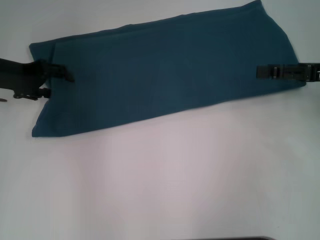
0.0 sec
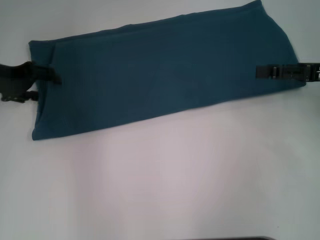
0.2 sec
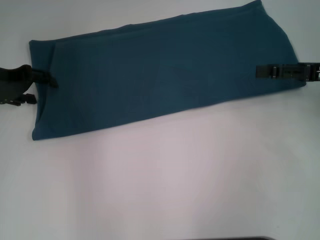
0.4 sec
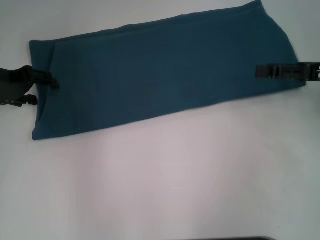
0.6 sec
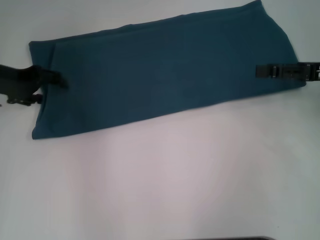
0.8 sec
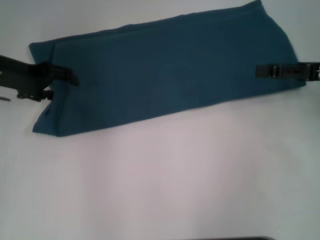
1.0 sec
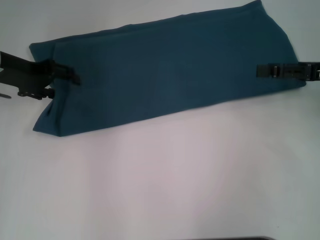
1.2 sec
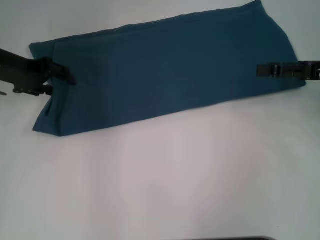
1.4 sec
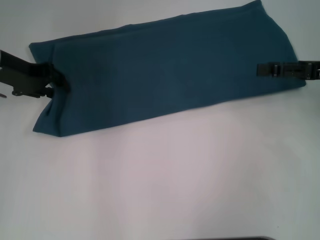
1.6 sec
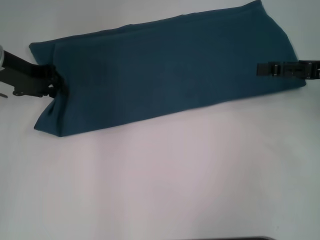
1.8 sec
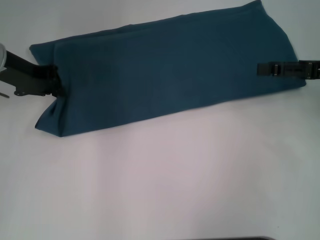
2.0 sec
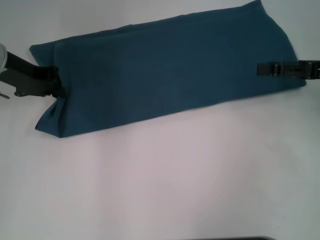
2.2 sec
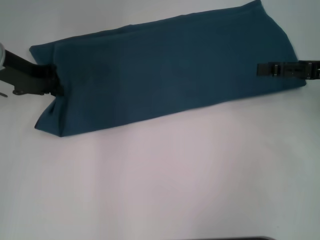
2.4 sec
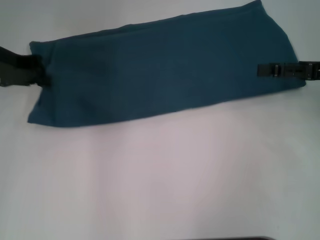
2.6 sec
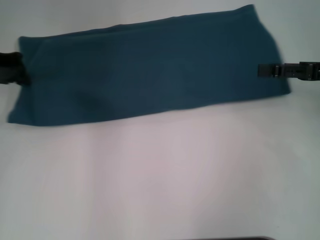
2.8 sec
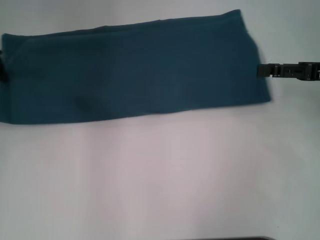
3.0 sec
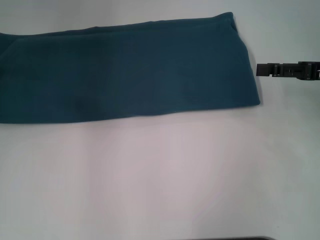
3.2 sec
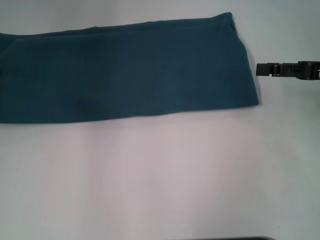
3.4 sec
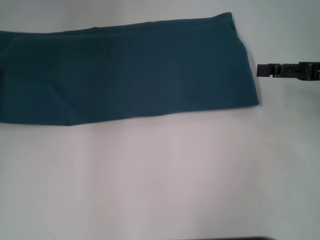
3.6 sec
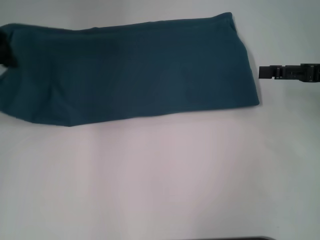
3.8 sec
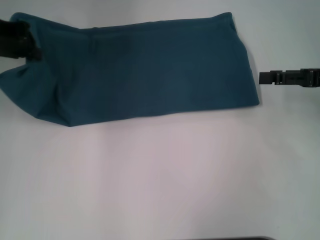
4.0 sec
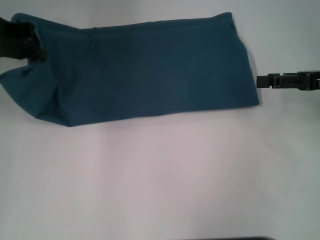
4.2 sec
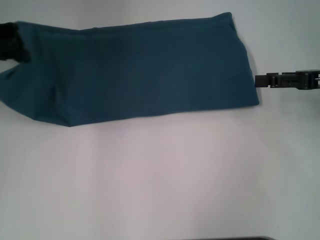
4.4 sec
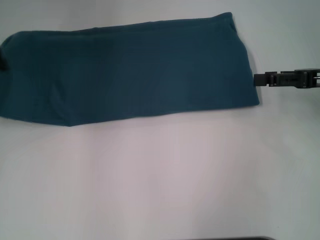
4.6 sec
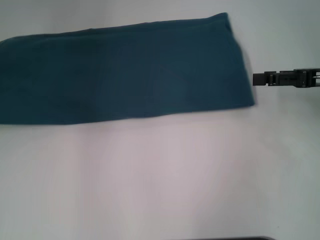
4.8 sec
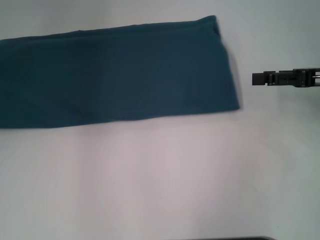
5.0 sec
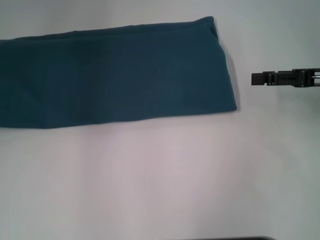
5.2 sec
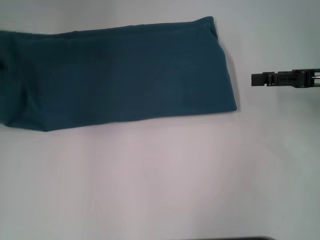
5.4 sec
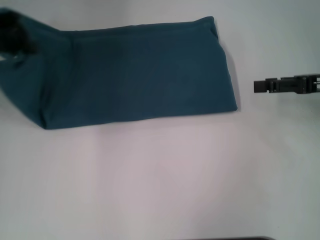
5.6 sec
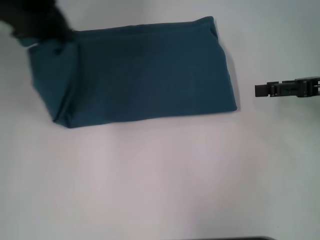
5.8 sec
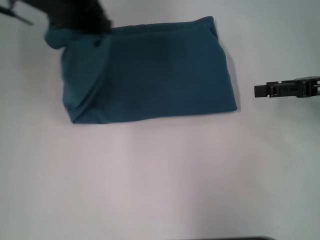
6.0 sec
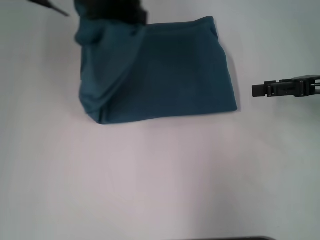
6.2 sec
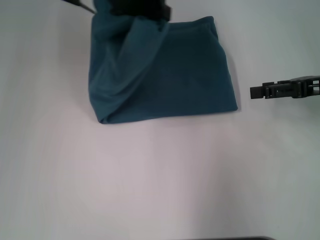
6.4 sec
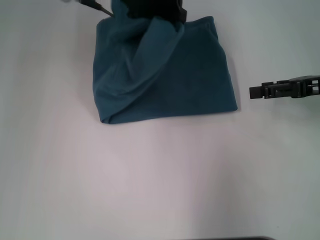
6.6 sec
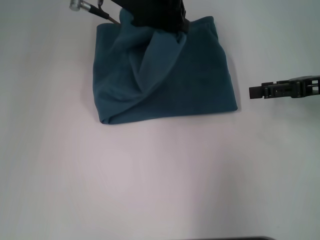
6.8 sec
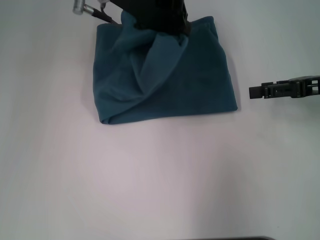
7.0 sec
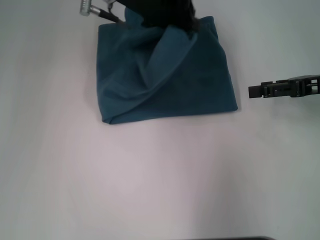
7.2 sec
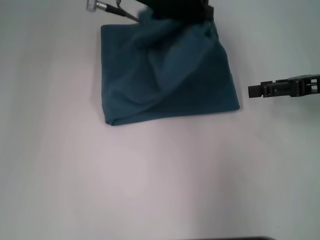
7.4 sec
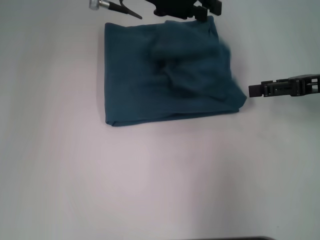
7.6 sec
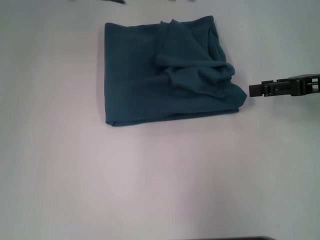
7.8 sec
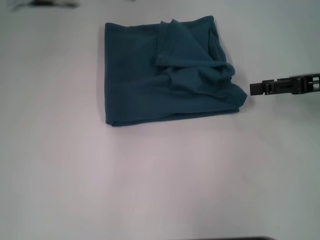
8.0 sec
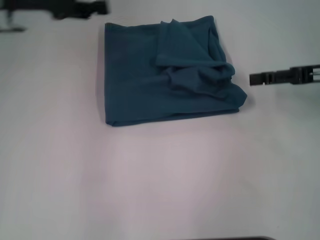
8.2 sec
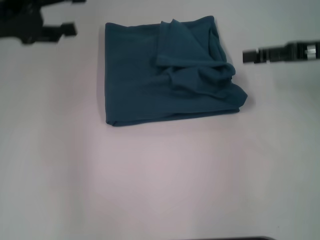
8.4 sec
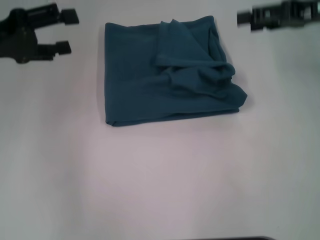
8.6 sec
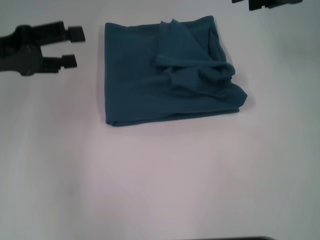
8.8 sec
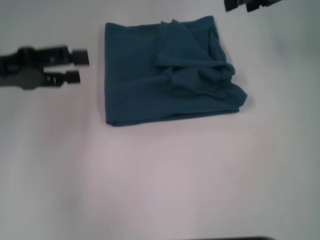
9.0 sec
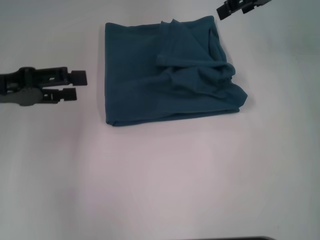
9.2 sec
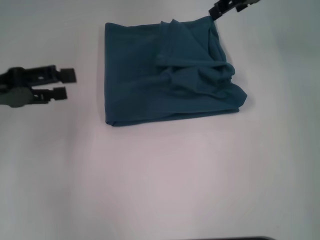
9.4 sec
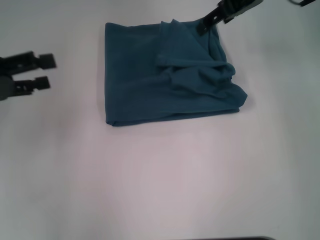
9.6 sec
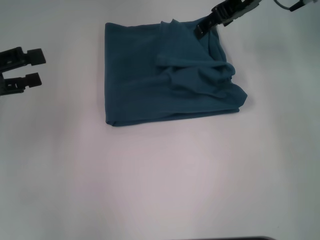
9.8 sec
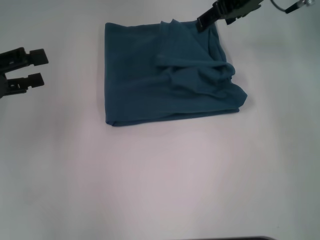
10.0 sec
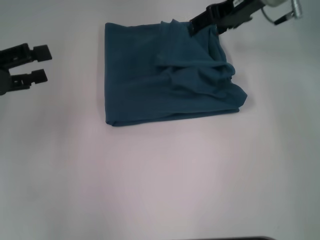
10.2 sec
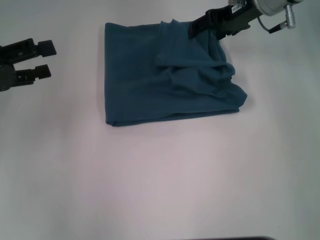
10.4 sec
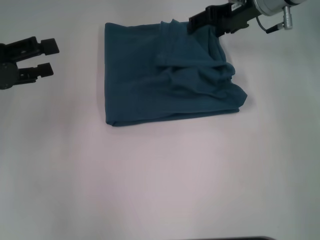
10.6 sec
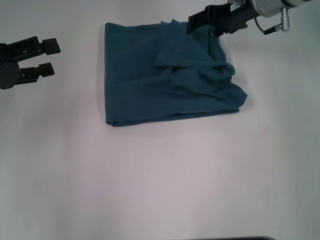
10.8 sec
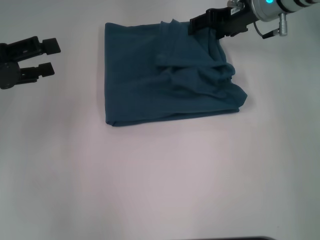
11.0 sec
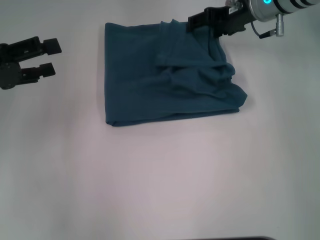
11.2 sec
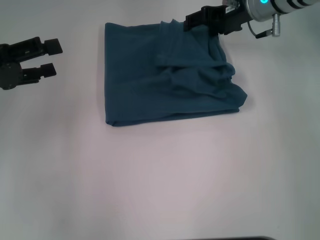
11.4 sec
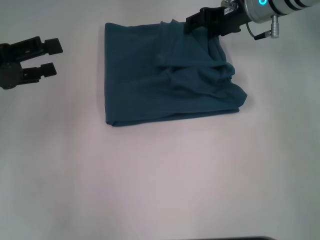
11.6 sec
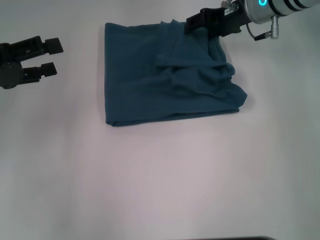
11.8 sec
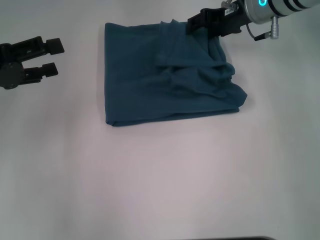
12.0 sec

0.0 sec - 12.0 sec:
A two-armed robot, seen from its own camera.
Step, 0.0 sec - 7.6 sec: Fold the clothes to the left.
0.0 sec - 1.6 sec: There are only small adjustments of the grippers.
1.6 sec - 3.0 sec: The left gripper shifts approximately 5 cm to the left, and closes up.
4.4 sec - 6.0 sec: The left gripper goes some 10 cm to the right.
6.0 sec - 7.6 sec: The left gripper moves to the right, roughly 10 cm.
7.6 sec - 9.0 sec: The left gripper is displaced to the left and backward by some 25 cm, and opens its fingers. Meanwhile the right gripper shifts approximately 15 cm upward, forward and to the left.
9.0 sec - 10.4 sec: The right gripper heads to the left and downward, covering about 10 cm.
10.4 sec - 12.0 sec: The grippers move only a little.

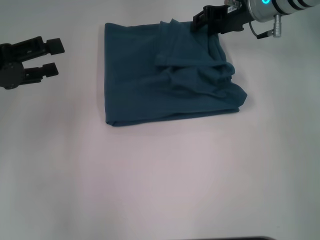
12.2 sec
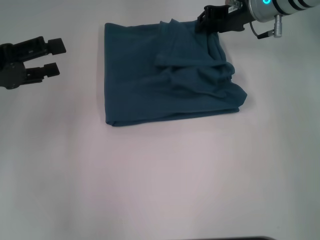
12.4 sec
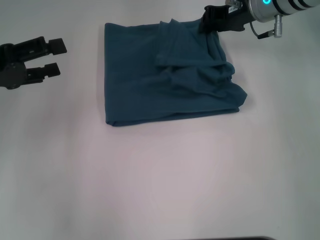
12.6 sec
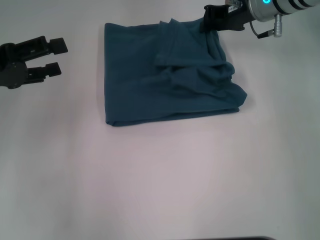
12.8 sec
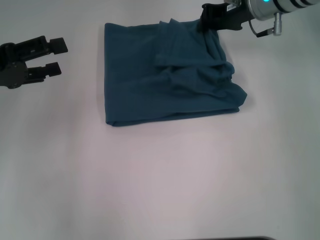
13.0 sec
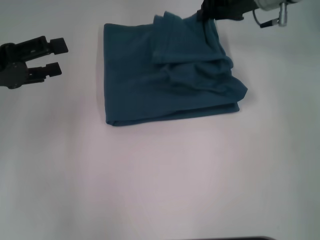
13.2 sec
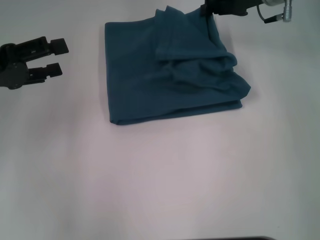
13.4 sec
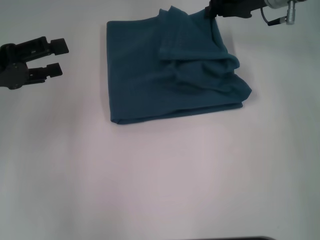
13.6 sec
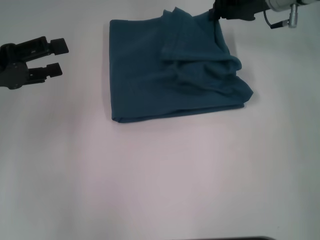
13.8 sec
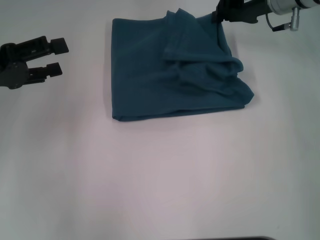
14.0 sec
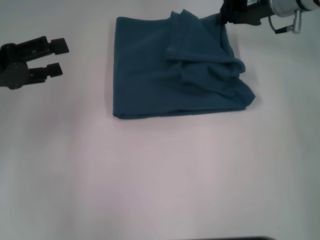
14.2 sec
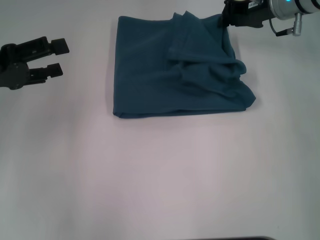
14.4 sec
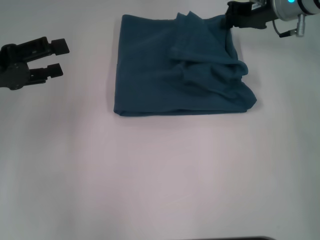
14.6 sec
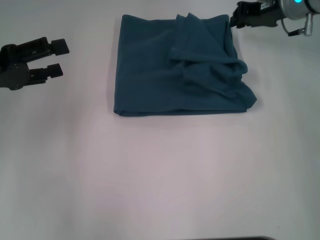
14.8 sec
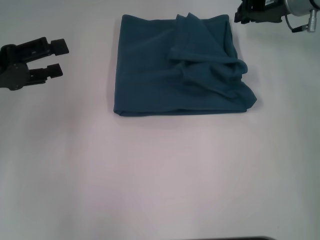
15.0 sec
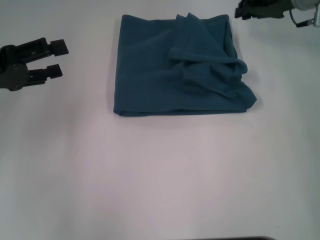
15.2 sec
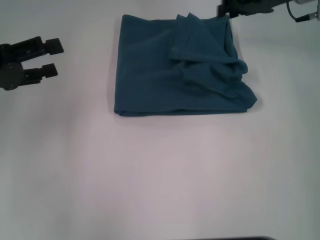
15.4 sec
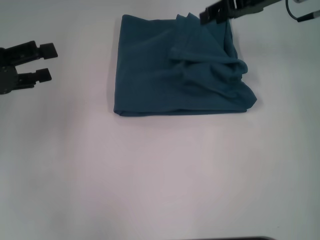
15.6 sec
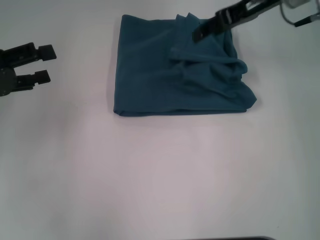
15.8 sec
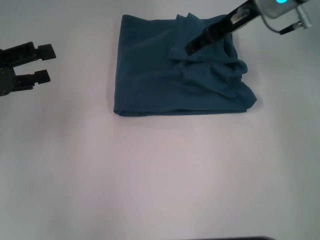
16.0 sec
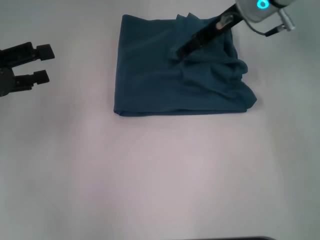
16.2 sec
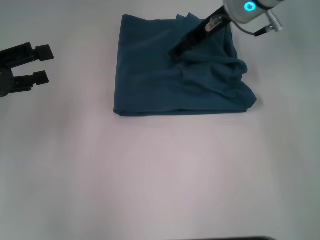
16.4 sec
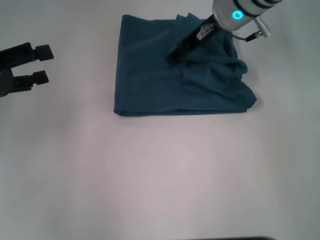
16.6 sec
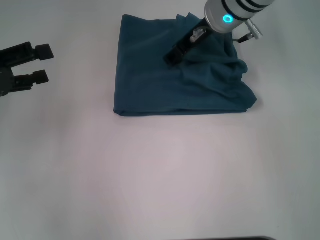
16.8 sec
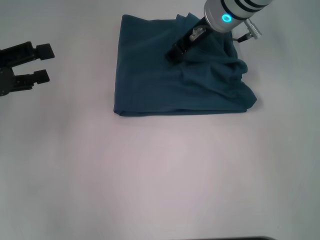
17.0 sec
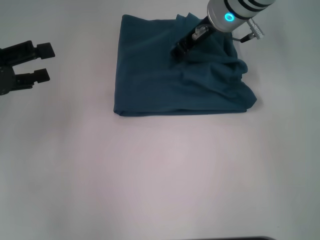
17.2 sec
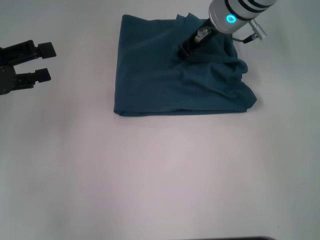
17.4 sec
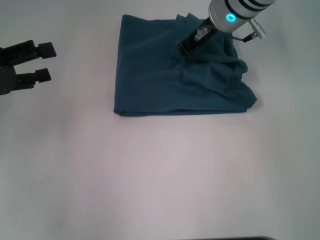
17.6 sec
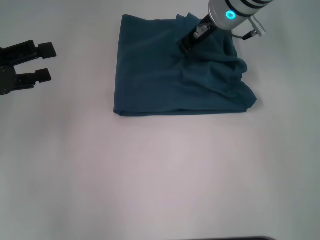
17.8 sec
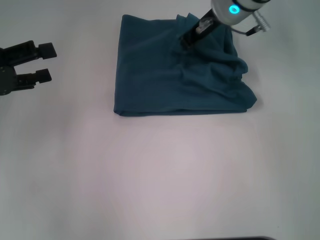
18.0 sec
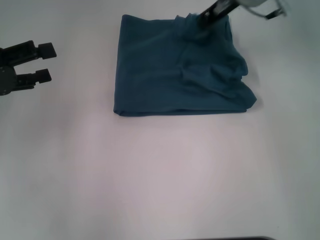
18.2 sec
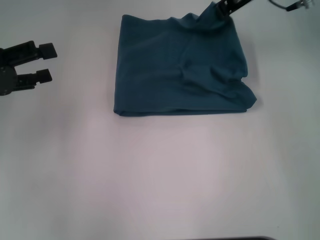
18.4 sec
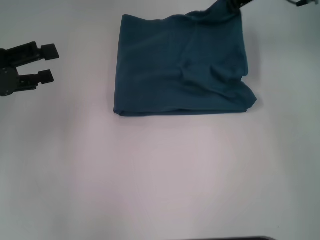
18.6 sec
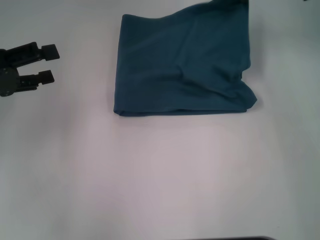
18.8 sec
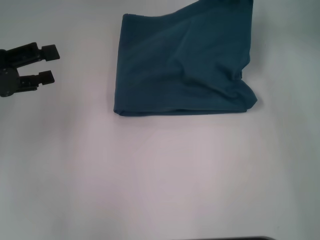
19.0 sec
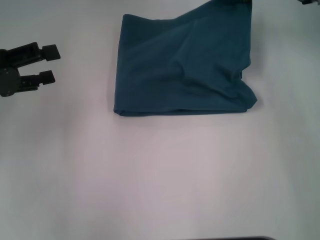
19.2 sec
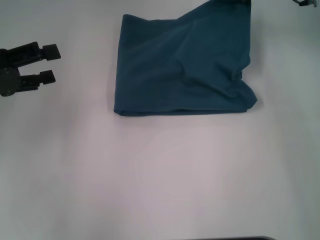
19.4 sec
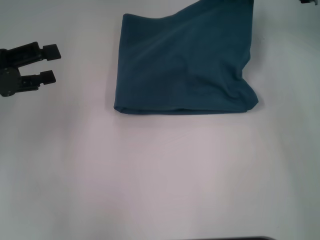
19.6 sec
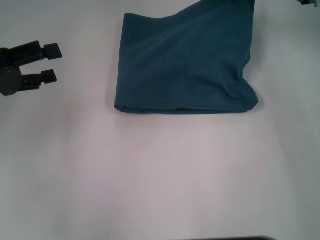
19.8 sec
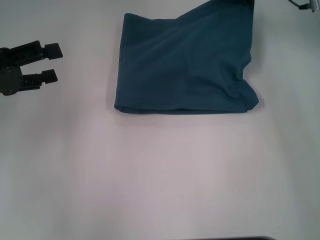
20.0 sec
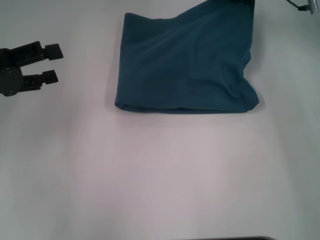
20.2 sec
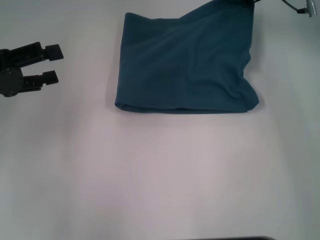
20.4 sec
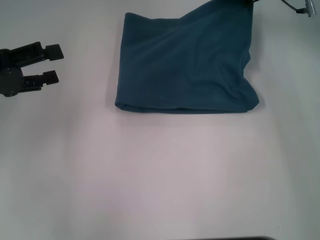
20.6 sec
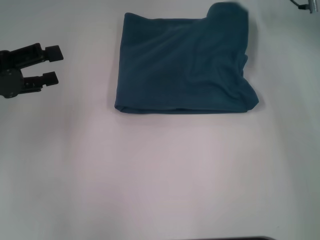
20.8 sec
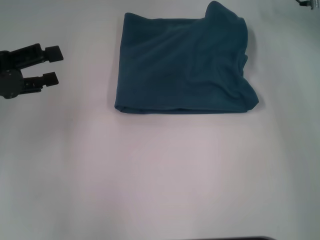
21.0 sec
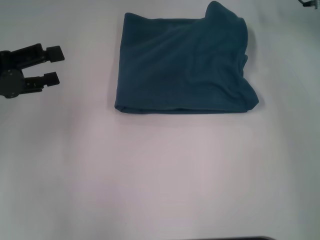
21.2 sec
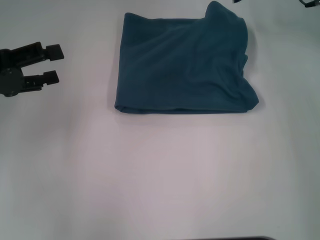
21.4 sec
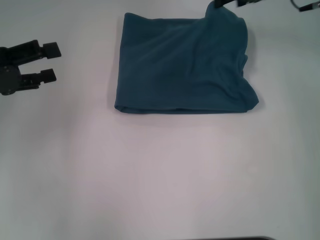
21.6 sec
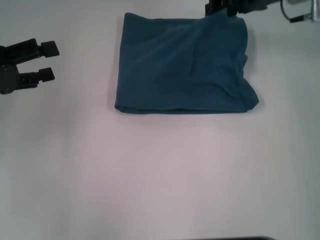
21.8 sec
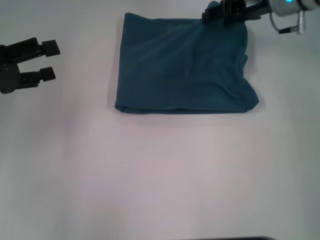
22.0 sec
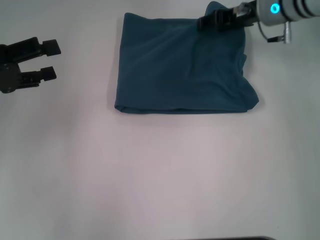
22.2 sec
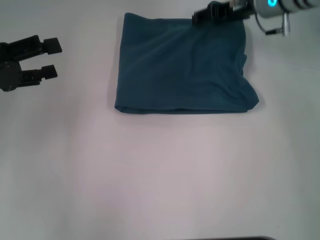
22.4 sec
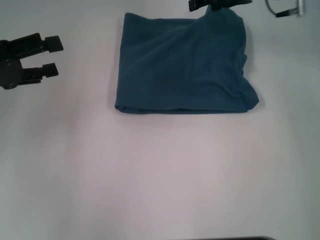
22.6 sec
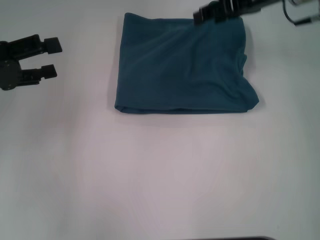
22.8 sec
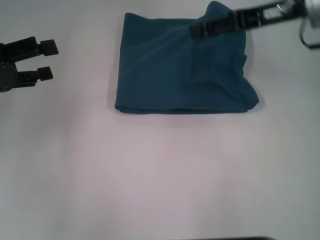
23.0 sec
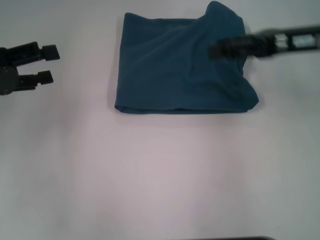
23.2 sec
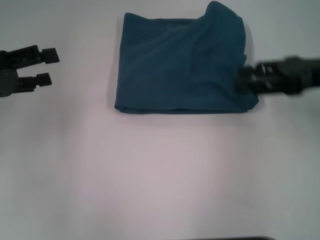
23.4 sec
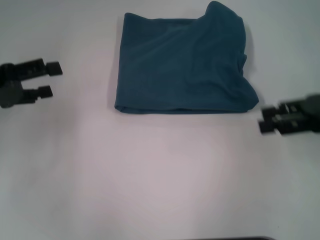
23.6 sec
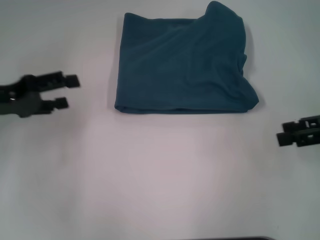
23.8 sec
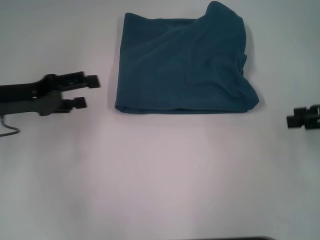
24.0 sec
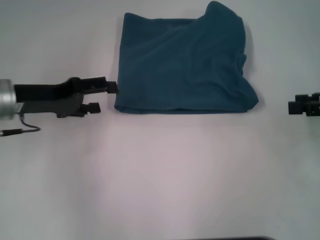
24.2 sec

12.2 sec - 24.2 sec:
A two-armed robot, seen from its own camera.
12.2 sec - 13.8 sec: The right gripper closes up.
13.8 sec - 15.2 sec: The grippers move only a little.
15.2 sec - 16.6 sec: The right gripper goes approximately 10 cm to the left, and opens up.
16.6 sec - 18.2 sec: The right gripper closes up.
18.2 sec - 19.8 sec: The right gripper shifts roughly 5 cm to the right.
19.8 sec - 21.2 sec: The right gripper opens its fingers.
22.6 sec - 24.2 sec: The right gripper moves backward and to the right, about 25 cm. The left gripper heads to the right, covering roughly 5 cm.
